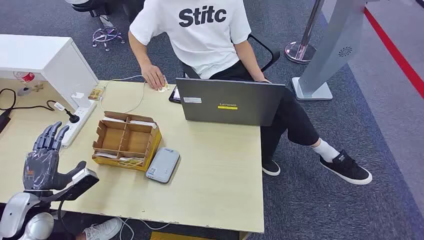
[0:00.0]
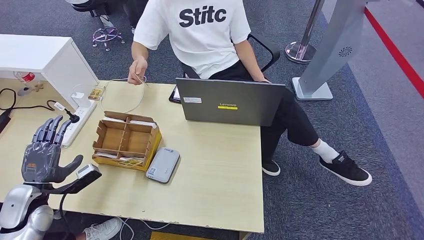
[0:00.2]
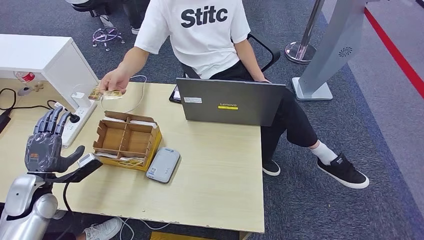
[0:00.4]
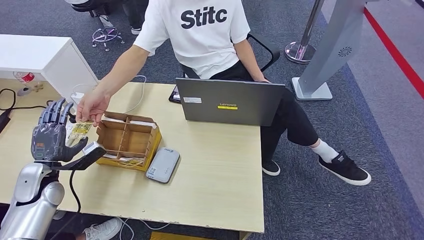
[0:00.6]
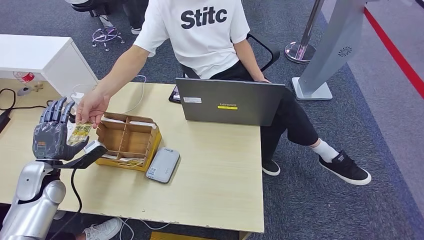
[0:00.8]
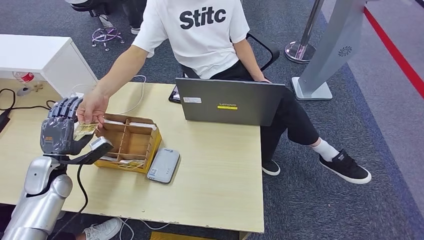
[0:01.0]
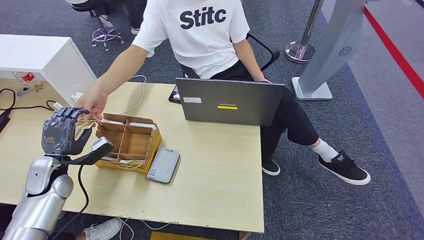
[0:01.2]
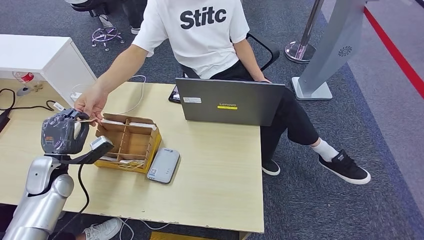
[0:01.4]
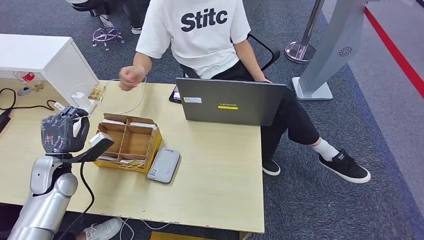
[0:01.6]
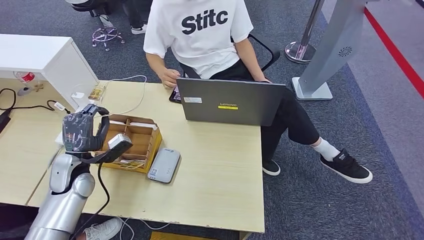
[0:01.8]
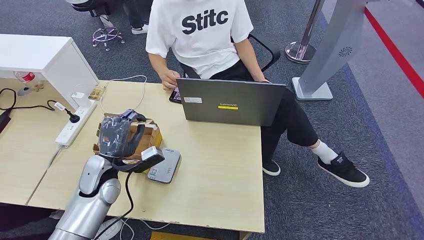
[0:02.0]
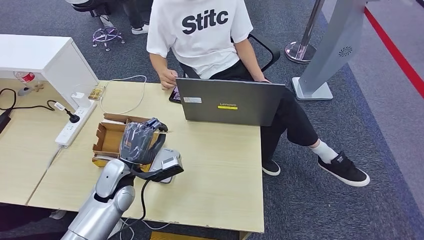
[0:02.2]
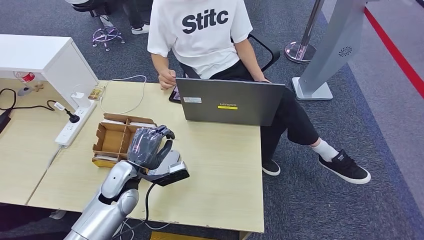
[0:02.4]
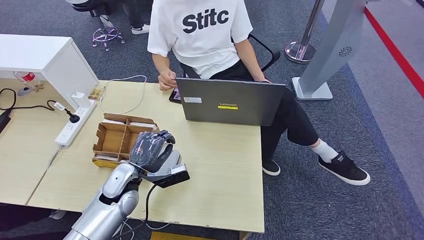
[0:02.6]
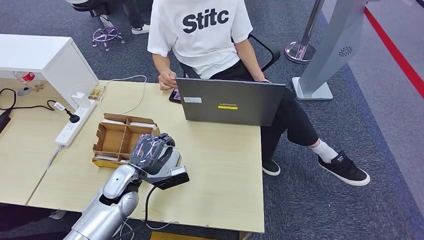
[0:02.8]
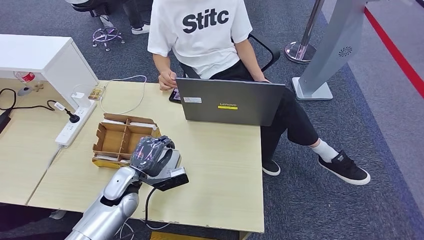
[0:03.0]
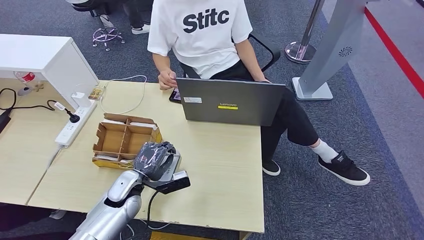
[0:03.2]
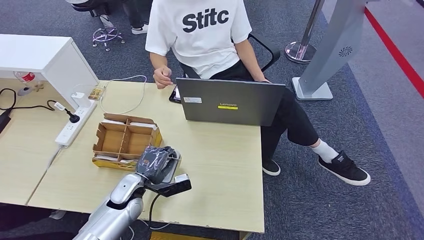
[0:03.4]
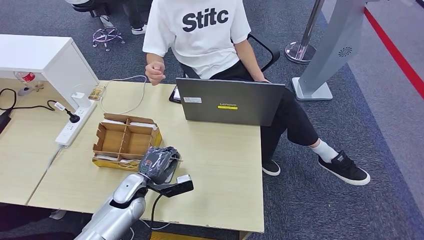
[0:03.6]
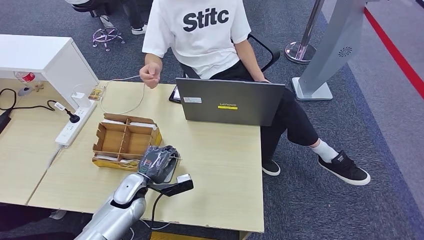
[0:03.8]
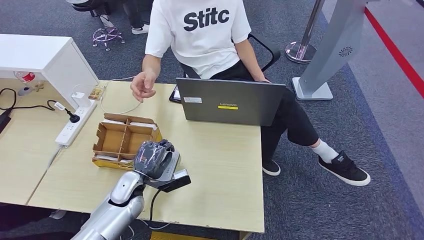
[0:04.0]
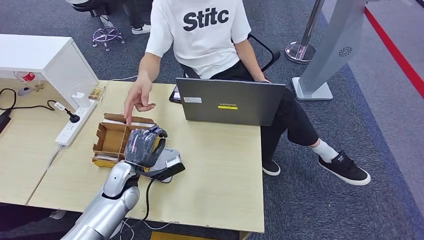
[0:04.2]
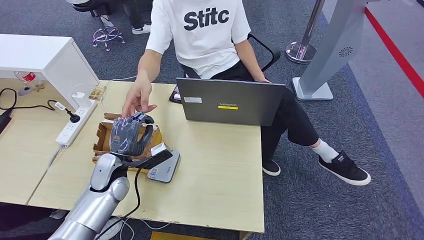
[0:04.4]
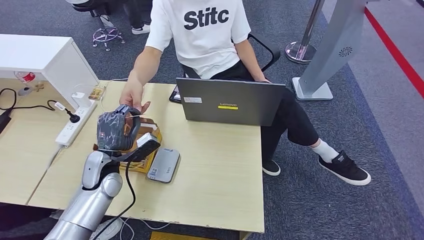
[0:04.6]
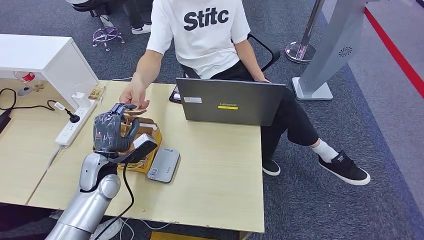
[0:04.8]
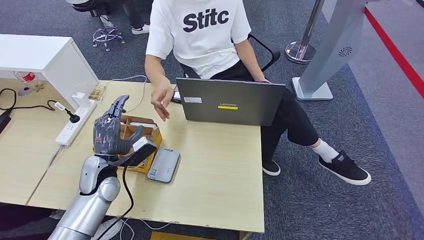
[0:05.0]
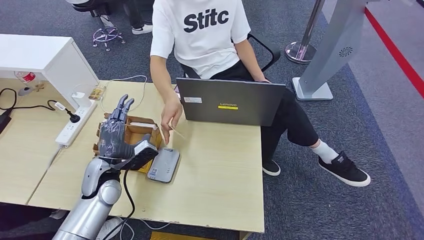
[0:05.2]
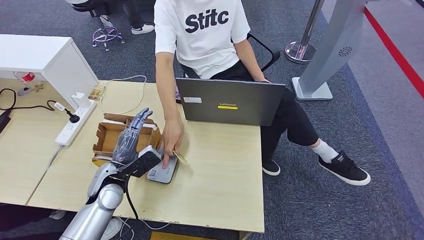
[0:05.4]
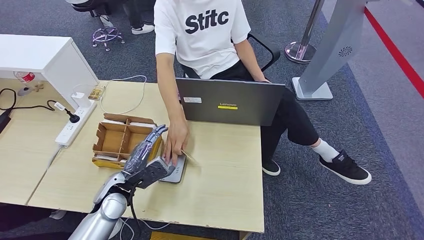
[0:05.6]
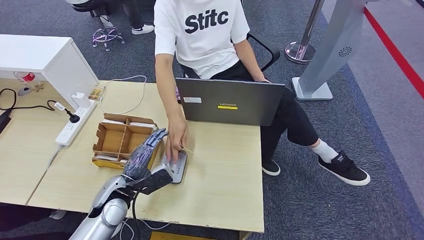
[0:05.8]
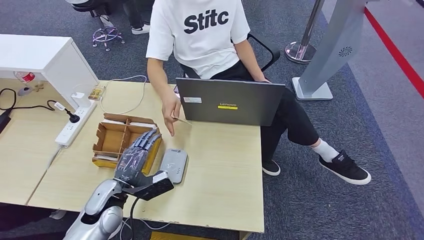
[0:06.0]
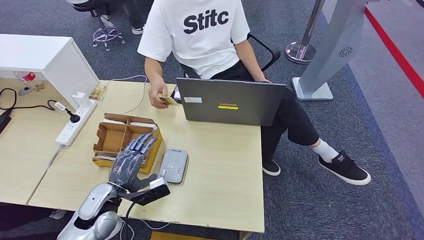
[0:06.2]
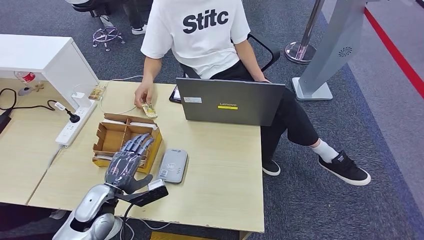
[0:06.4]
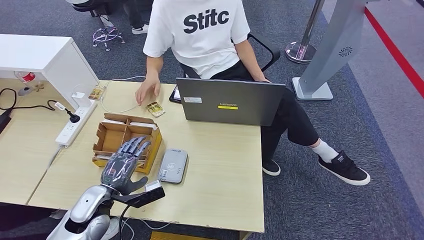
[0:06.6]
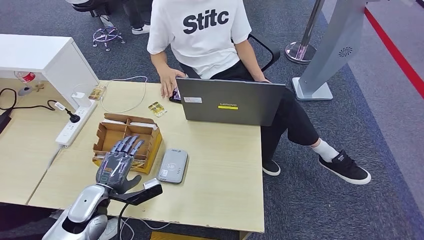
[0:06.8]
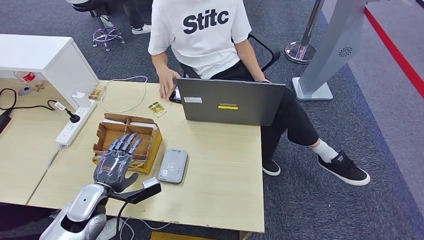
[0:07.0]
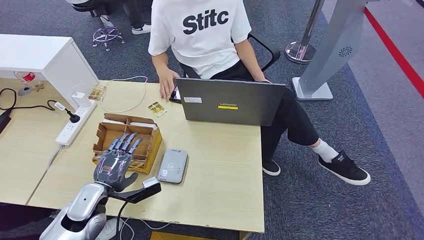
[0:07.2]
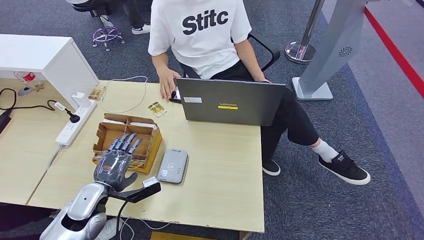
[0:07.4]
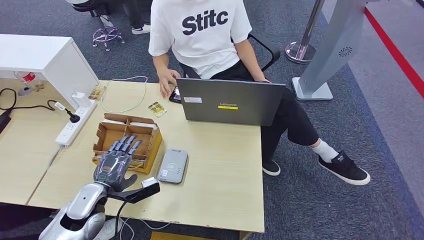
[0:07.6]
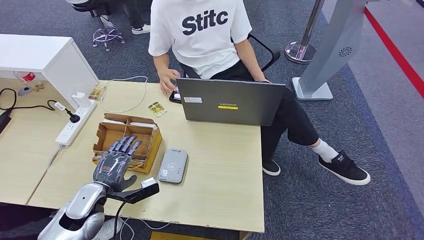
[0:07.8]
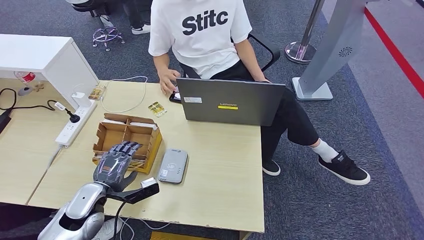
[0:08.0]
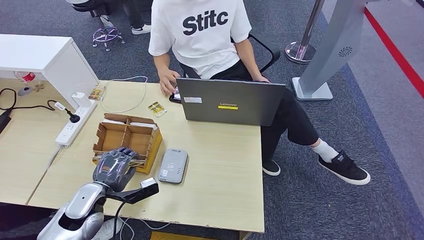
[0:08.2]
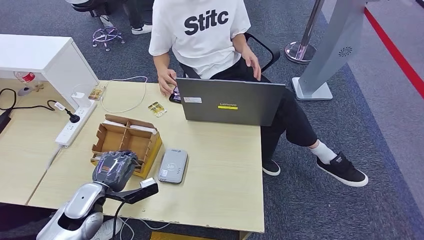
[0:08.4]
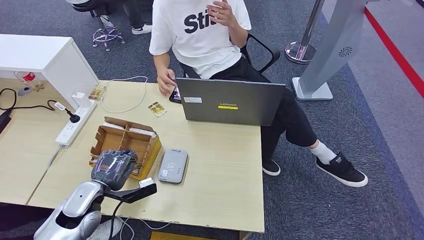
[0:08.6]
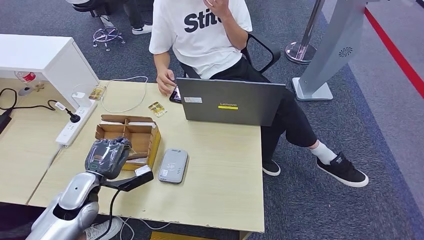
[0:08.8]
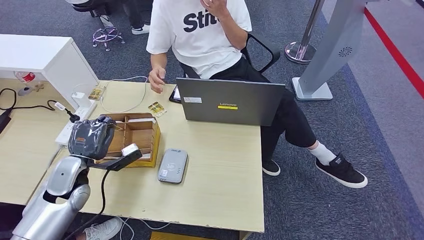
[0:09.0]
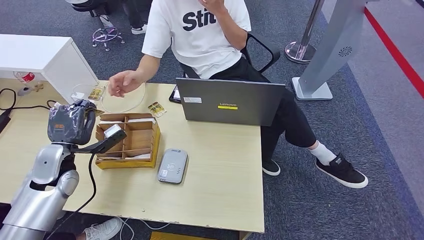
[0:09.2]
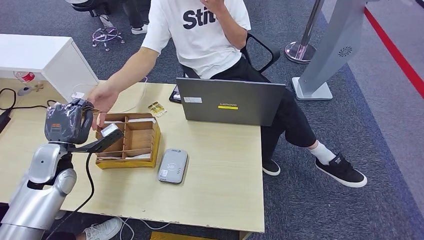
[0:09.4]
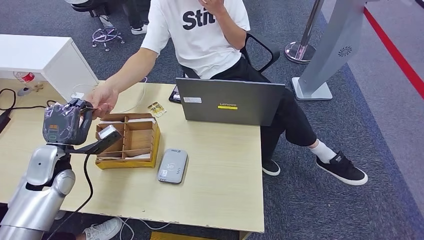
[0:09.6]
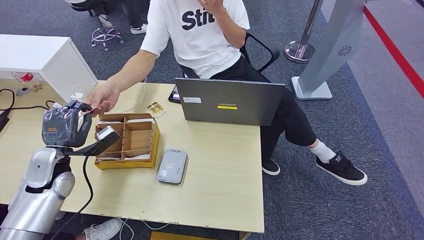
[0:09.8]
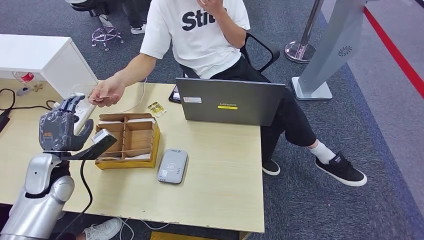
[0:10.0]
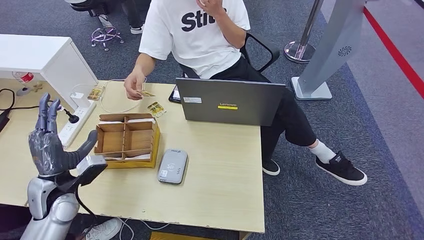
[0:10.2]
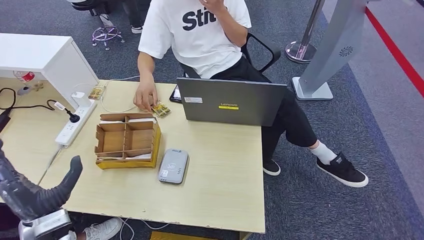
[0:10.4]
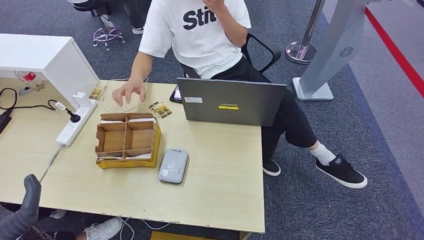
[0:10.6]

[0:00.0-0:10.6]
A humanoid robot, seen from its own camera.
Step, 0:00.0 to 0:01.8: Take the ID card from the person's hand.
Step, 0:02.0 to 0:03.8: Place the ID card on the card reader.
Step, 0:04.0 to 0:06.2: Hand the ID card to the person.
Step, 0:08.2 to 0:09.0: Pick up the room key from the key card box.
Step, 0:09.2 to 0:10.6: Hand the room key to the person.
0:01.6 to 0:03.0: The left hand shifts some 20 cm to the right.
0:03.0 to 0:04.6: The left hand goes roughly 5 cm to the left.
0:04.6 to 0:06.0: The left hand heads backward, covering about 5 cm.
0:07.6 to 0:09.0: The left hand shifts approximately 5 cm upward.
0:09.0 to 0:10.6: The left hand travels backward by about 15 cm.

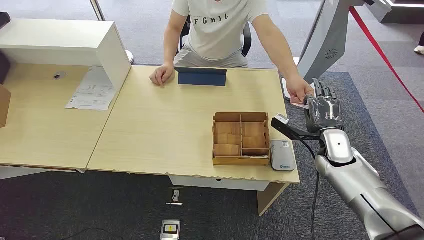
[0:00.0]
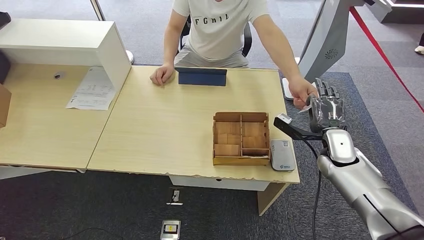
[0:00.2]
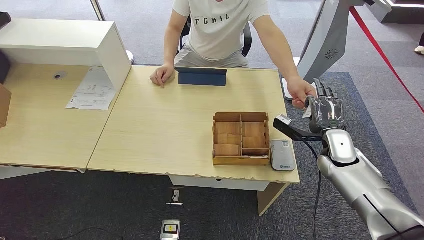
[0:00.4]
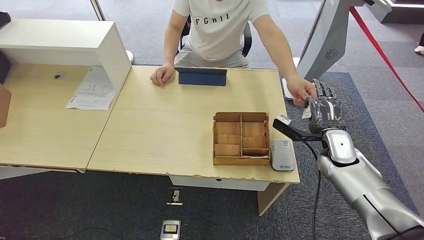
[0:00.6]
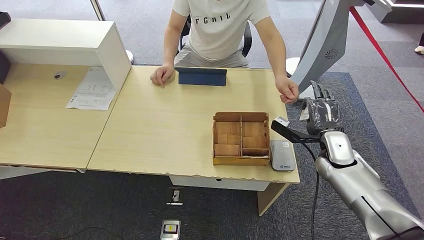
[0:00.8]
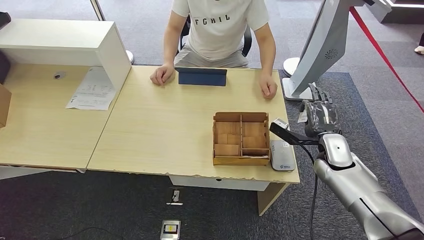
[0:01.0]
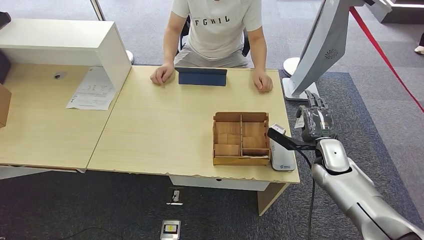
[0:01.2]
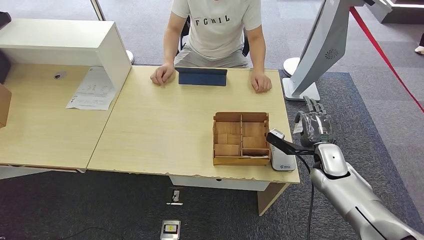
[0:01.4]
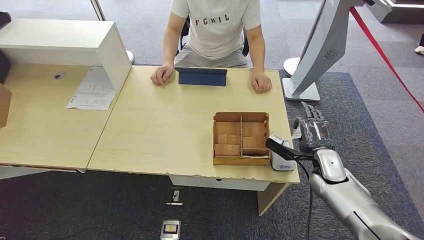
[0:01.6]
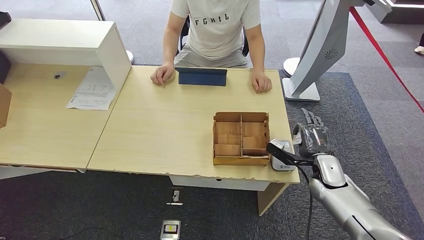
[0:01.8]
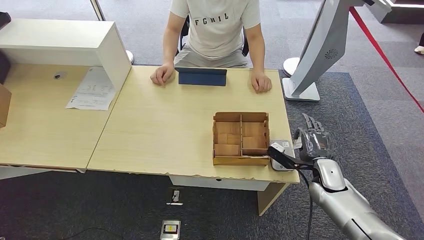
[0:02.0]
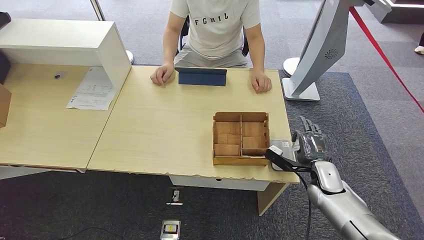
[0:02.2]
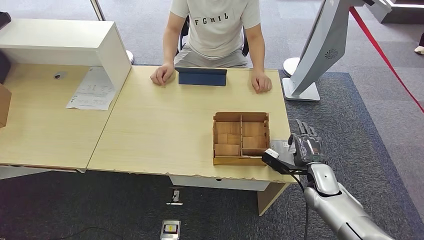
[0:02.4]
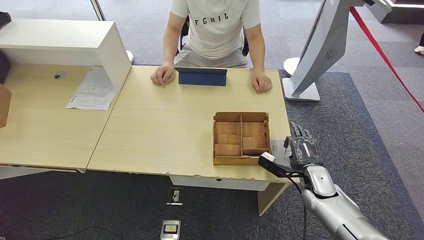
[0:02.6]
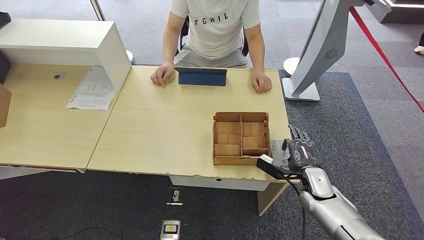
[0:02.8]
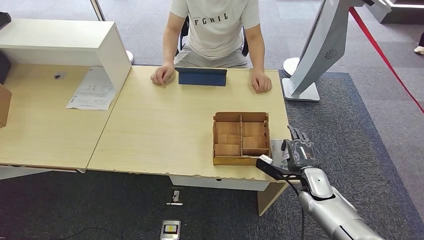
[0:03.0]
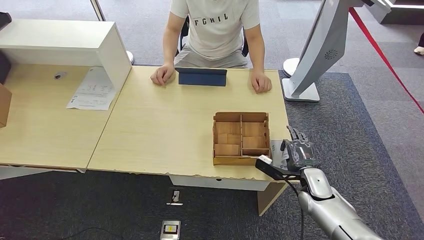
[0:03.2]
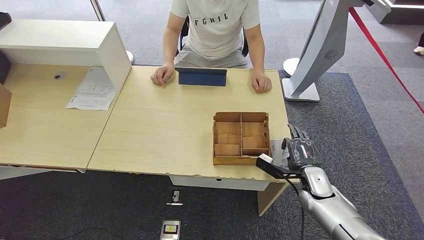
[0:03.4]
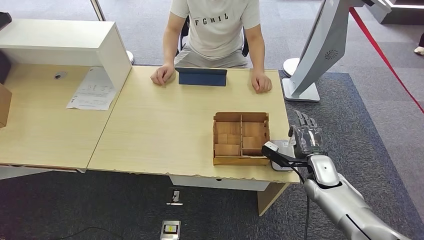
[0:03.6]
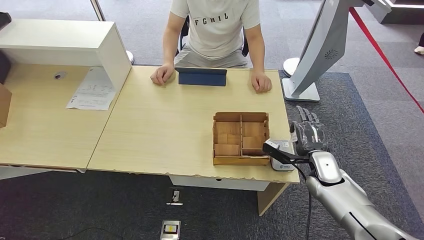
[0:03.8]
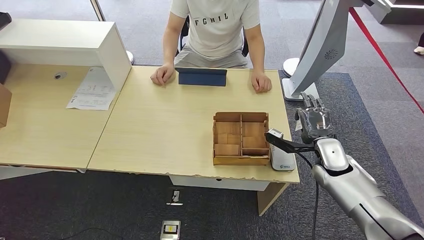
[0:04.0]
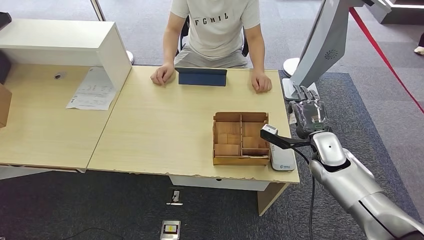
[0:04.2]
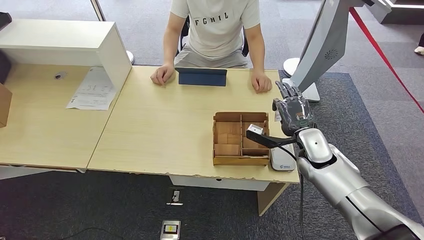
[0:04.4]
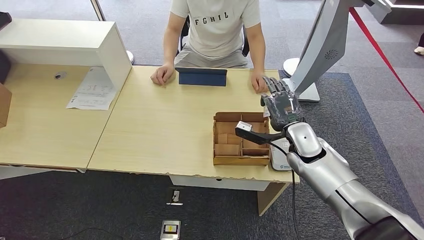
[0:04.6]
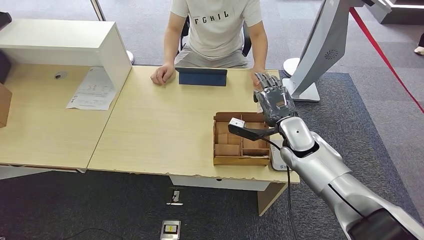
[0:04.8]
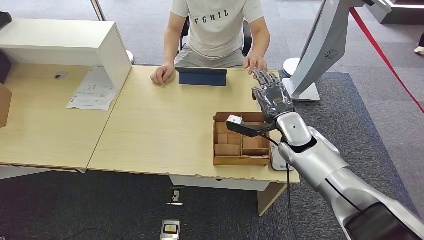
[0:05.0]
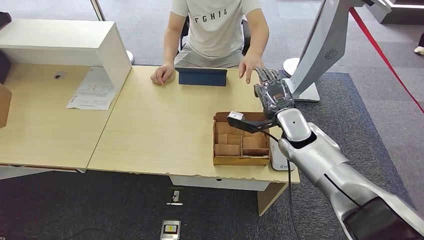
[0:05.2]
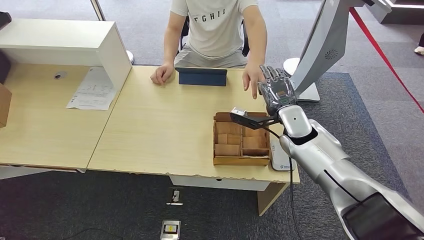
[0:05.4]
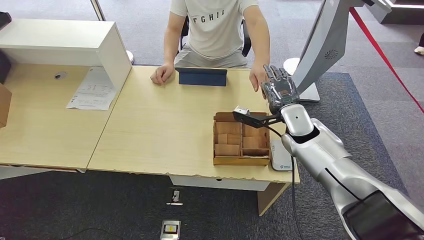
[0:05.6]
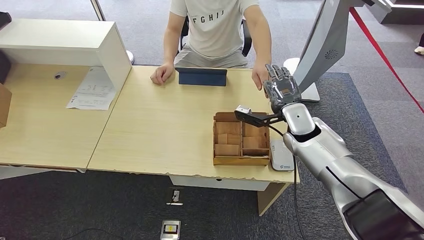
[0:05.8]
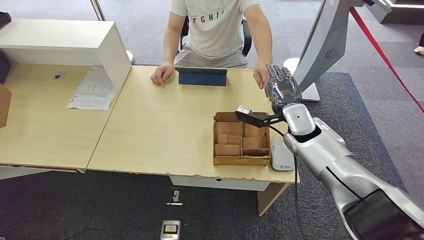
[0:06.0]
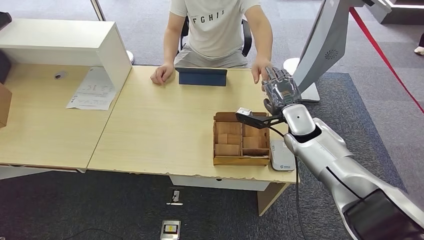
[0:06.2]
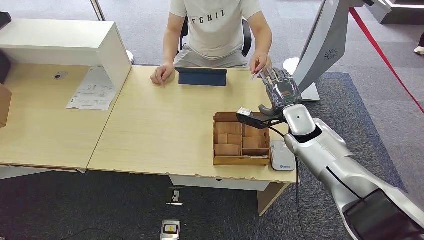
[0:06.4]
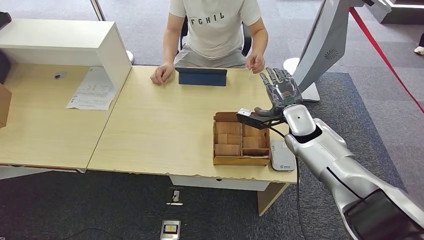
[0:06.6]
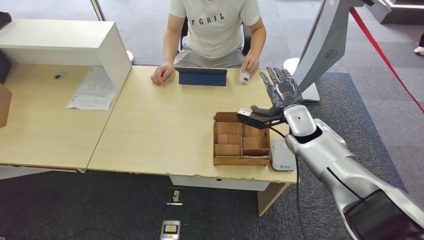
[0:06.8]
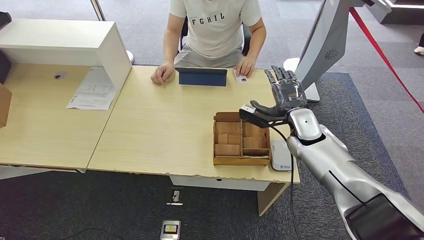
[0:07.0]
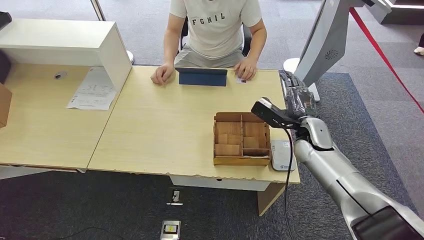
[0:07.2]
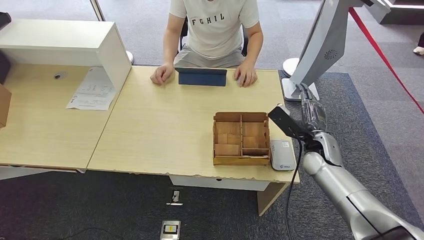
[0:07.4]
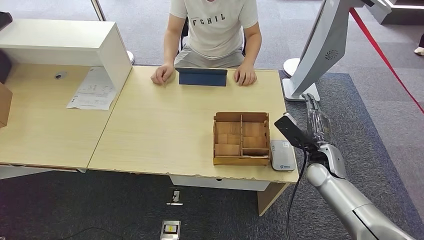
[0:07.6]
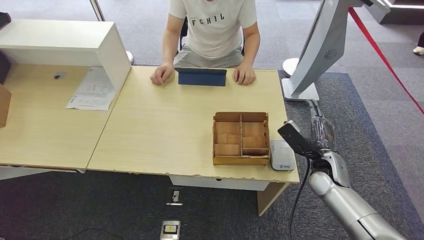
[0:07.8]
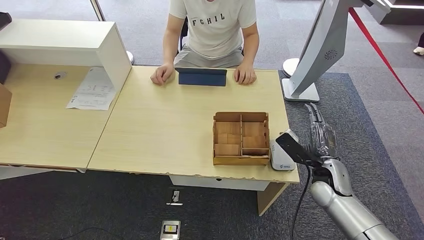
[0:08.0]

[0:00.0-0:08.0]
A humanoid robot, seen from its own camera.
Step, 0:00.0 to 0:01.4: Take the ID card from the person's hand.
Step, 0:01.6 to 0:06.0: Place the ID card on the card reader.
0:01.6 to 0:03.2: The right hand shifts roughly 5 cm downward.
0:03.2 to 0:04.8: The right hand travels upward, to the left and forward by some 20 cm.
0:04.8 to 0:06.4: The hands make only small movements.
0:06.4 to 0:08.0: The right hand travels downward, backward and to the right by approximately 15 cm.
